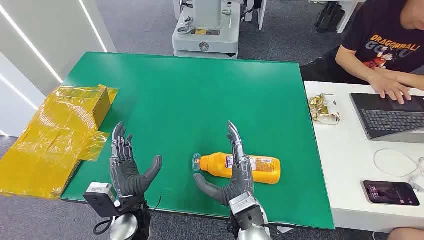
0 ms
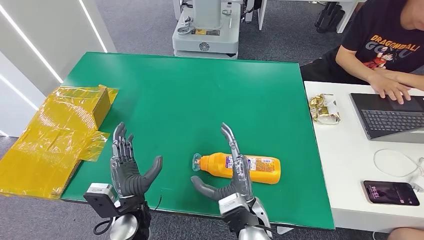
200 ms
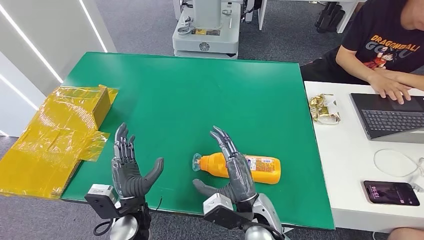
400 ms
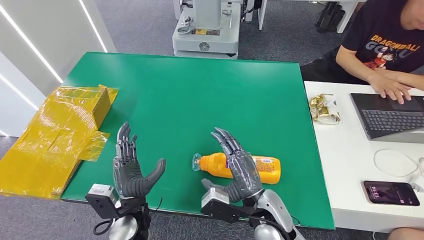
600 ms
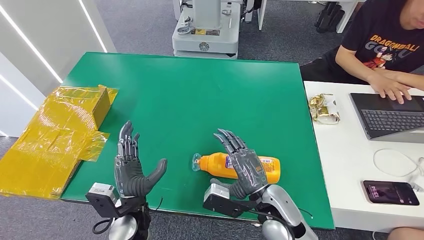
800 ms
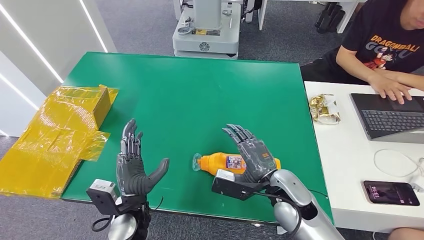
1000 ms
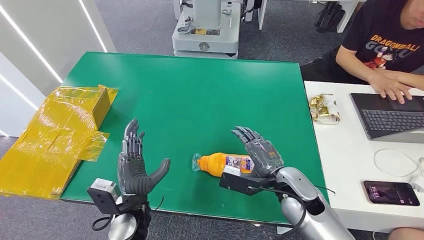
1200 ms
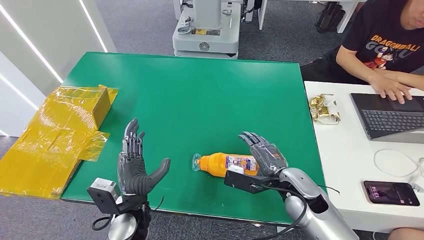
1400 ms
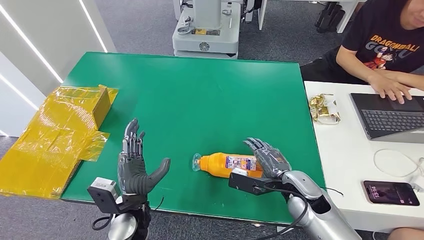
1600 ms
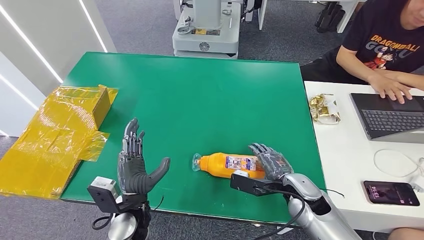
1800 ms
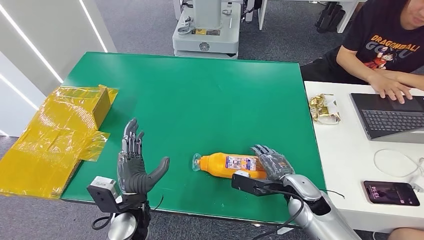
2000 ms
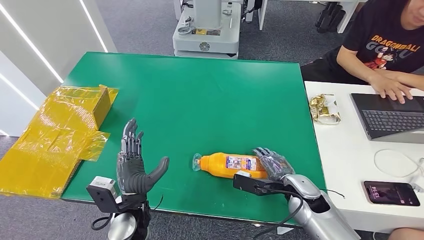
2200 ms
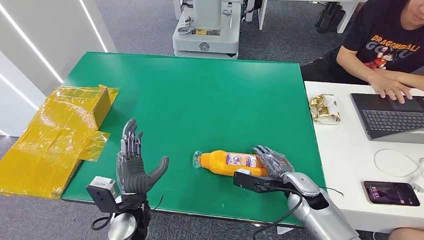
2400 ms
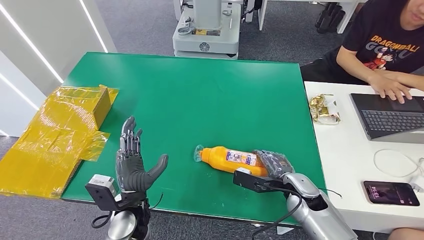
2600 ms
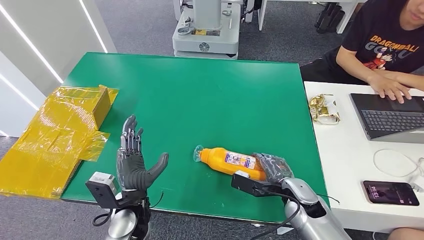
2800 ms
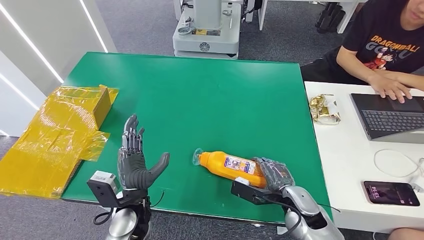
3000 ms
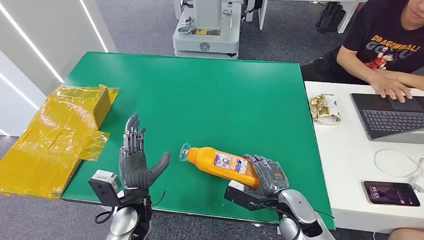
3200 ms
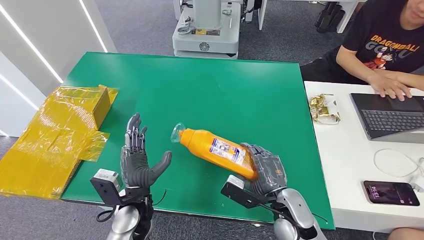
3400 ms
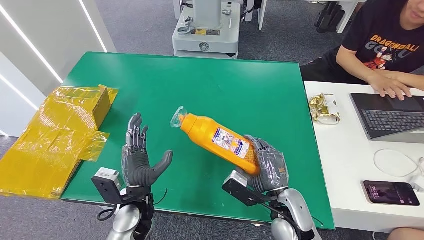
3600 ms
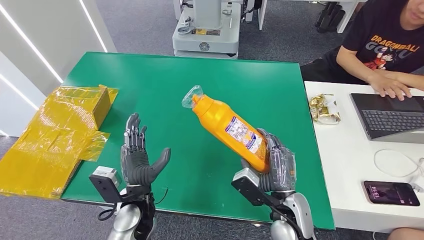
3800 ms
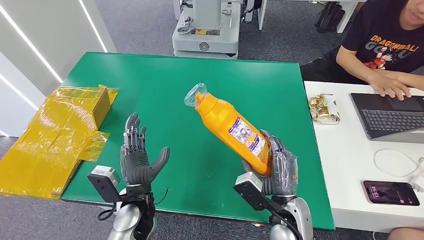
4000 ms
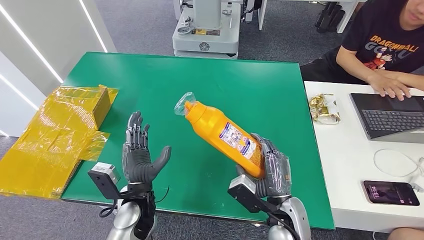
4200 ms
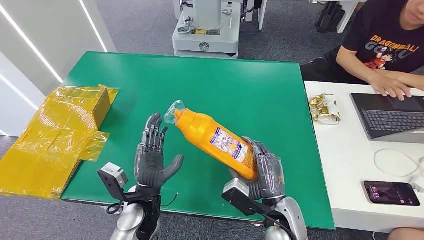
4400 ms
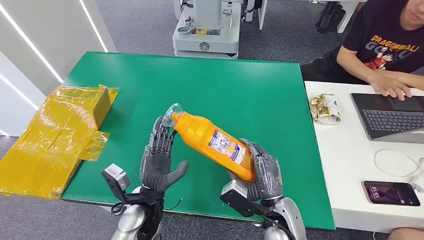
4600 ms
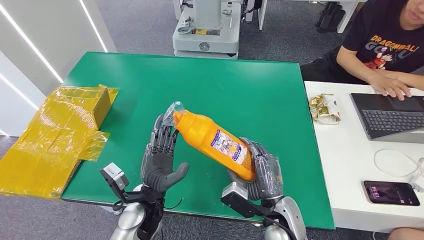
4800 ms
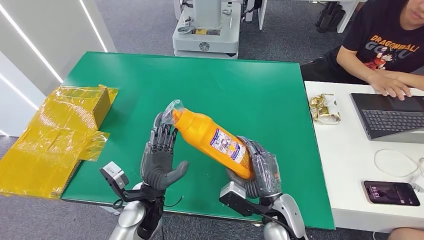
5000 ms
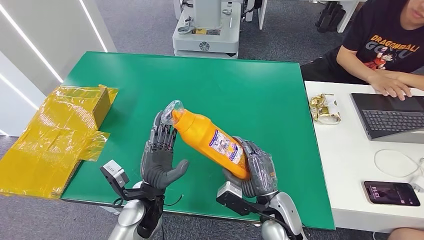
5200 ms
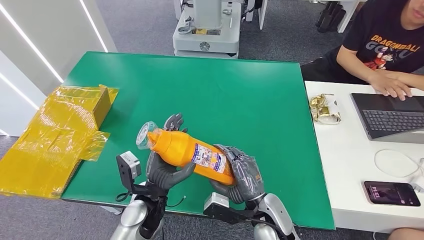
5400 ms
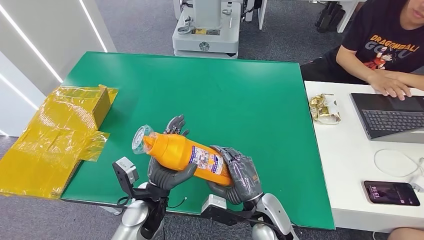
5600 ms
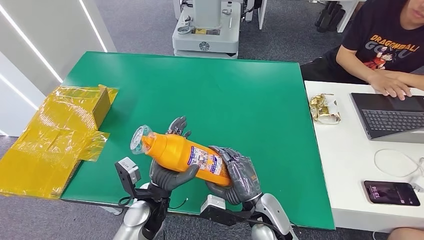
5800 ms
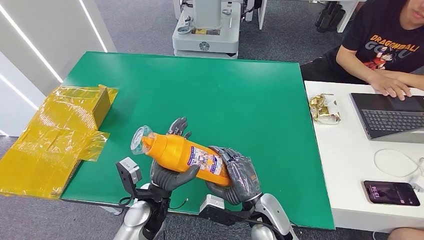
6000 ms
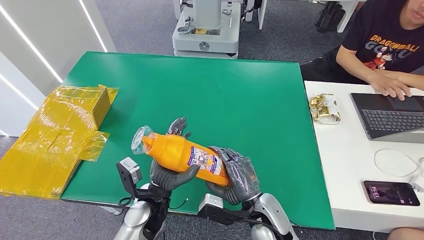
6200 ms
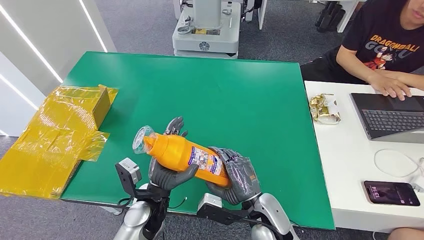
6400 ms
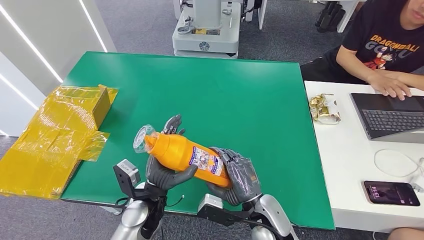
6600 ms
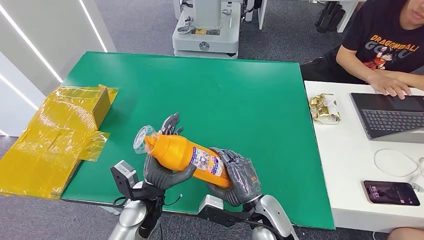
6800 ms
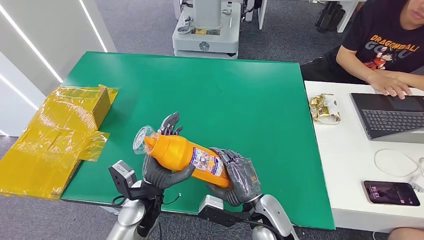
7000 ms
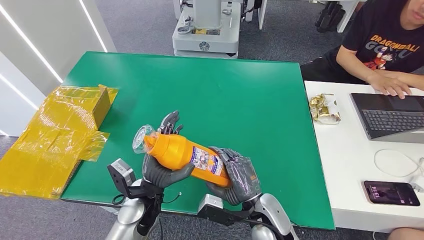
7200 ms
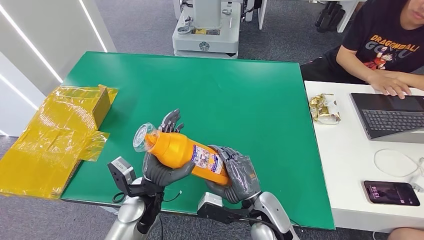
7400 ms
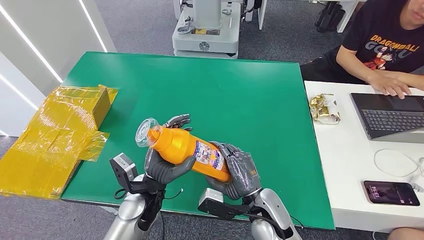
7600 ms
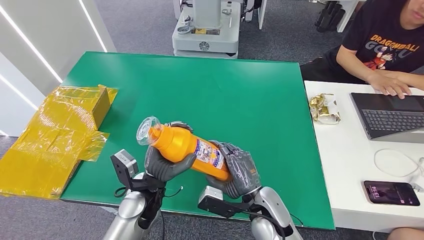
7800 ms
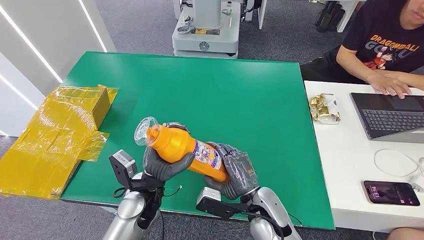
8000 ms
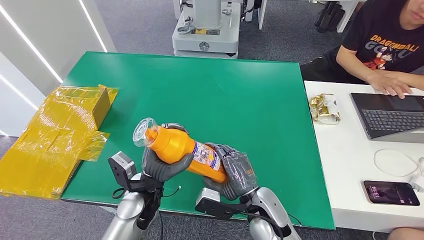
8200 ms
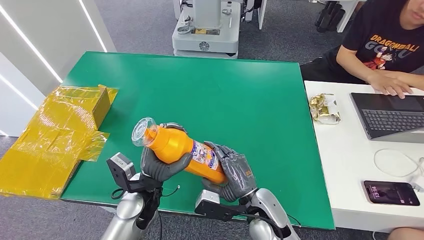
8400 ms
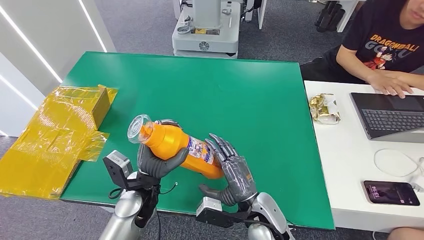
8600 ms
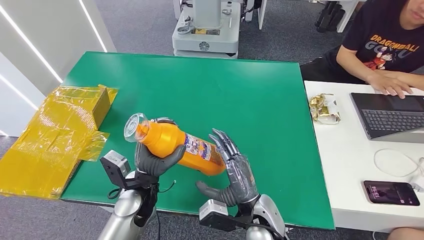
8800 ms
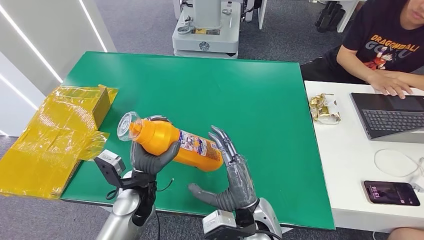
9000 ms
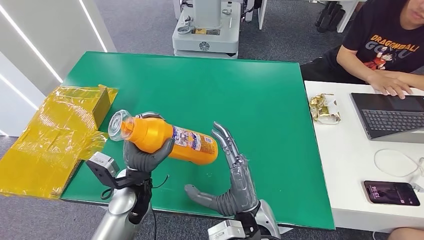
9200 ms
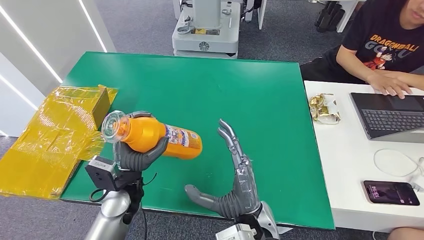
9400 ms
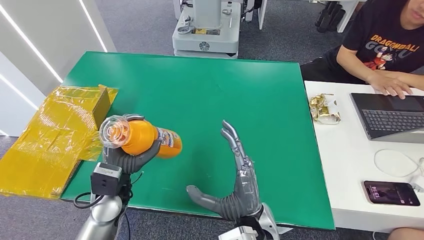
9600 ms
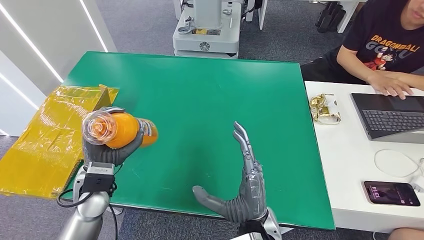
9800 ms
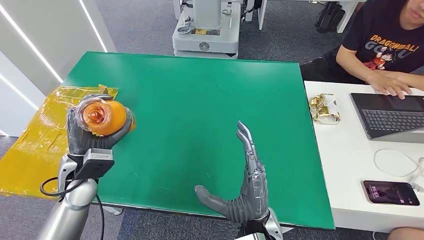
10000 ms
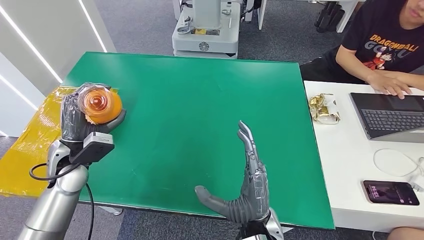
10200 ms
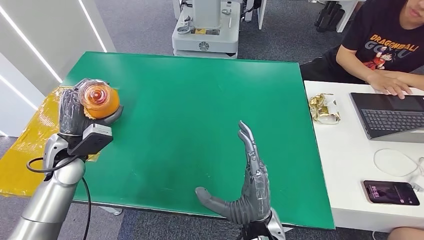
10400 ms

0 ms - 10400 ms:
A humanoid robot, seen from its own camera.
Step, 0 ms - 5200 ms: Pick up the bottle from the table.
Step, 5400 ms - 10400 ms: Turn the bottle to the front side.
1400 ms - 3000 ms: The right hand goes approximately 5 cm downward.
3000 ms - 4400 ms: The right hand heads to the left, covering roughly 5 cm.
4400 ms - 7400 ms: There are only small adjustments of the hands.
9000 ms - 10400 ms: The left hand goes approximately 20 cm to the left.

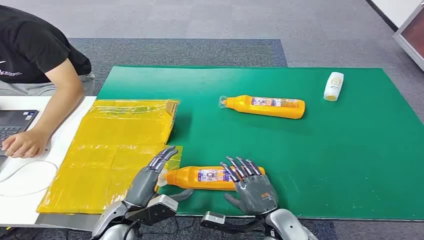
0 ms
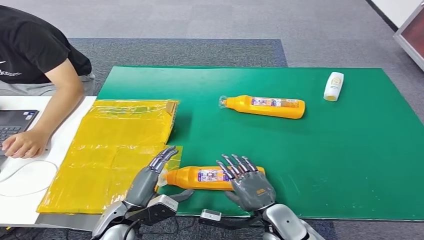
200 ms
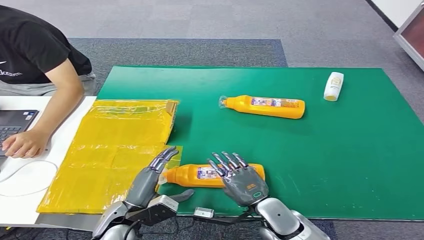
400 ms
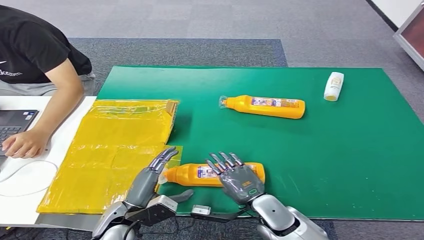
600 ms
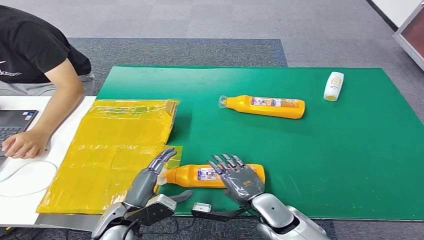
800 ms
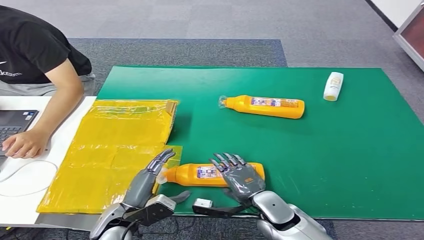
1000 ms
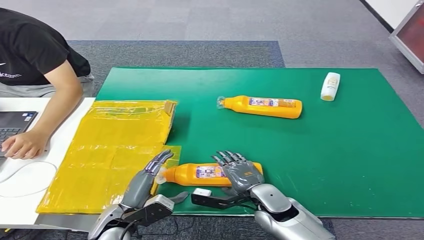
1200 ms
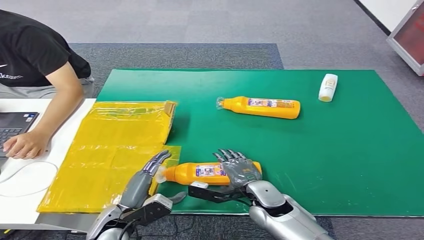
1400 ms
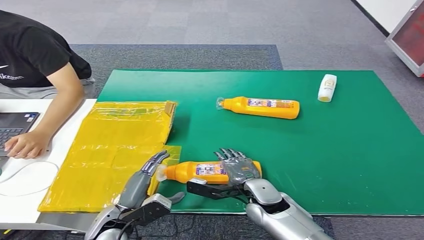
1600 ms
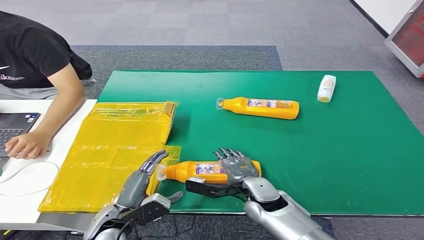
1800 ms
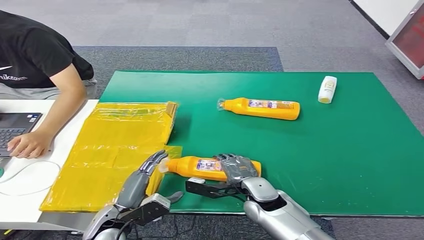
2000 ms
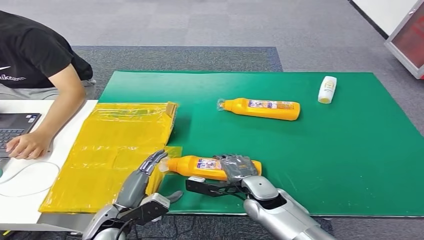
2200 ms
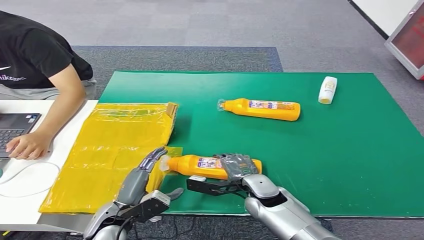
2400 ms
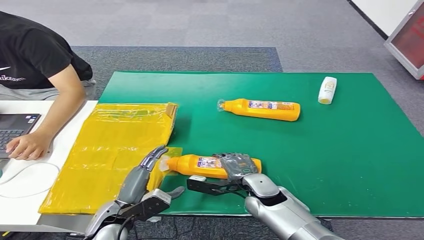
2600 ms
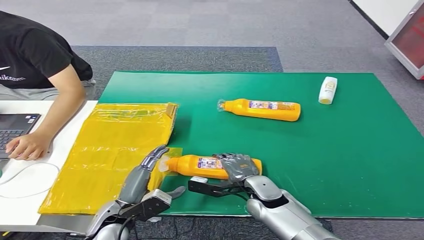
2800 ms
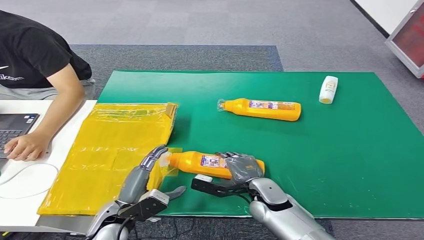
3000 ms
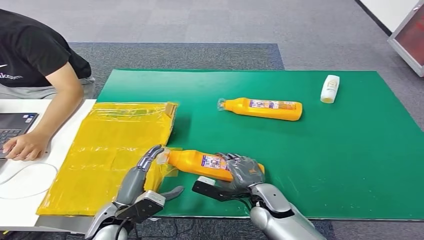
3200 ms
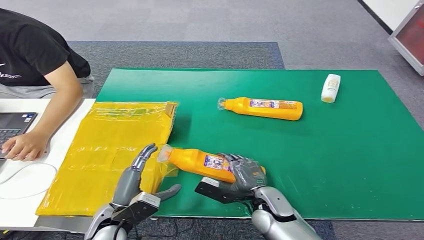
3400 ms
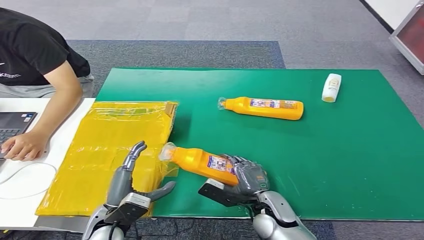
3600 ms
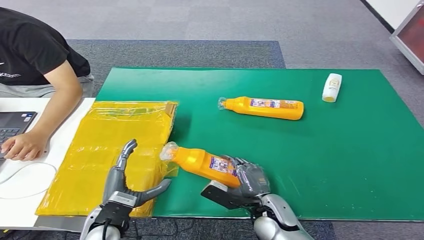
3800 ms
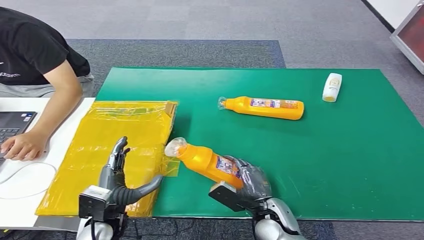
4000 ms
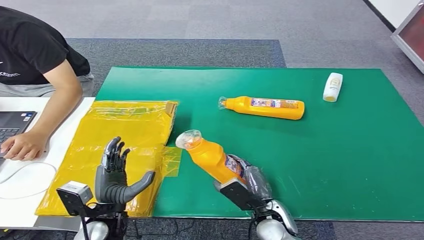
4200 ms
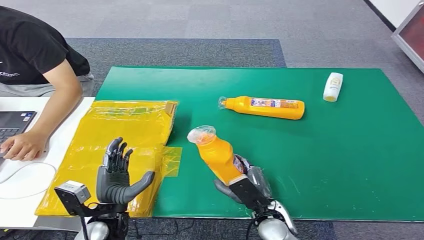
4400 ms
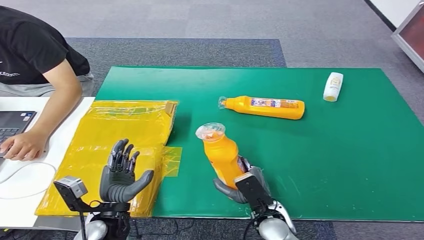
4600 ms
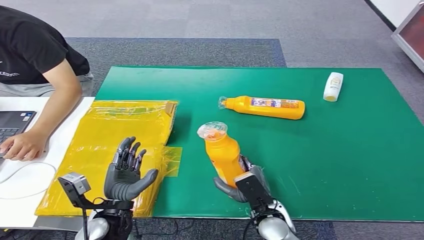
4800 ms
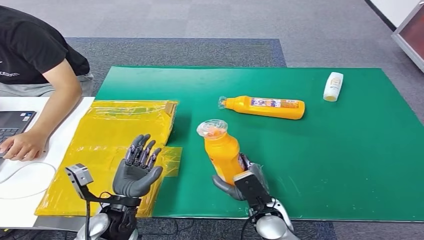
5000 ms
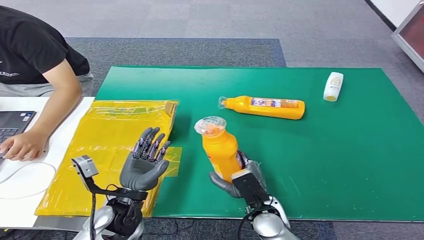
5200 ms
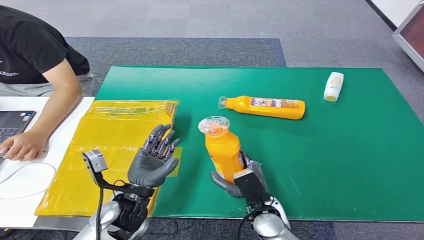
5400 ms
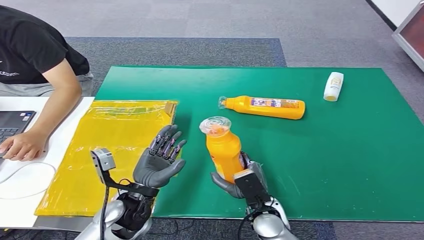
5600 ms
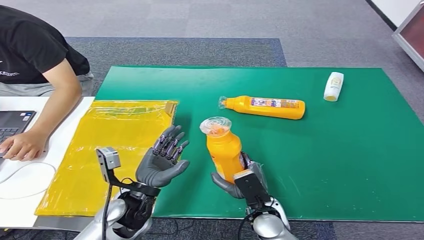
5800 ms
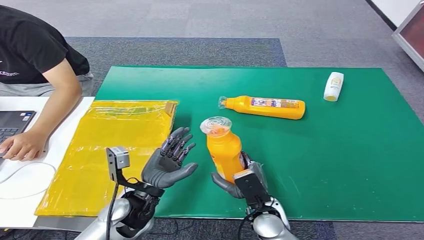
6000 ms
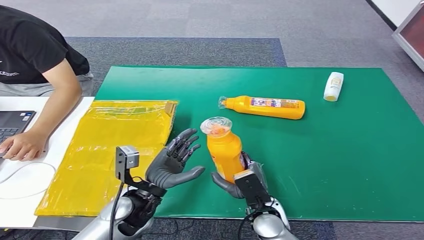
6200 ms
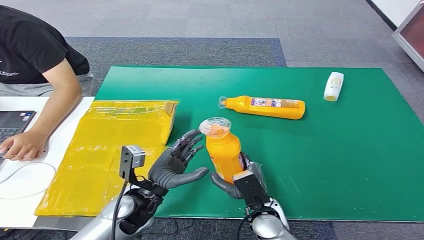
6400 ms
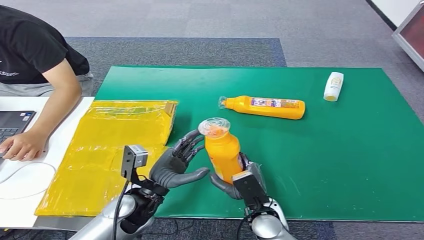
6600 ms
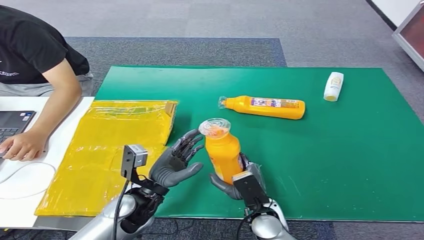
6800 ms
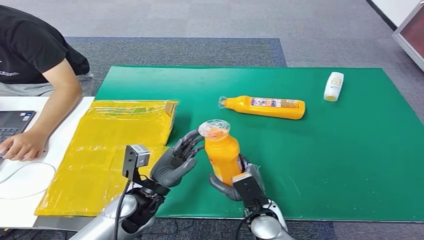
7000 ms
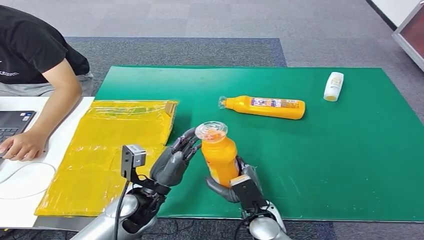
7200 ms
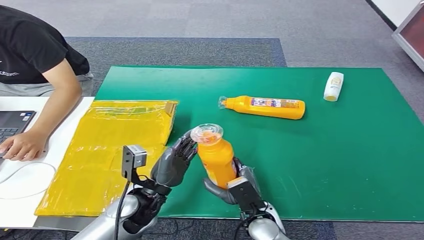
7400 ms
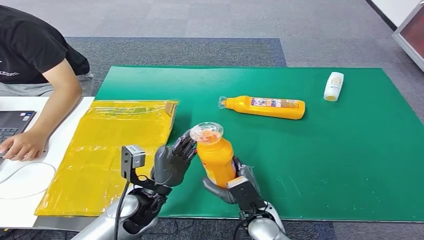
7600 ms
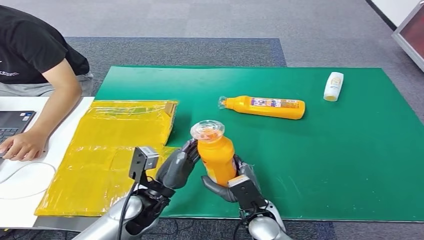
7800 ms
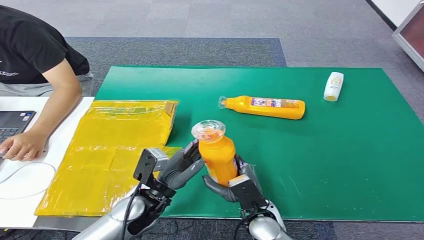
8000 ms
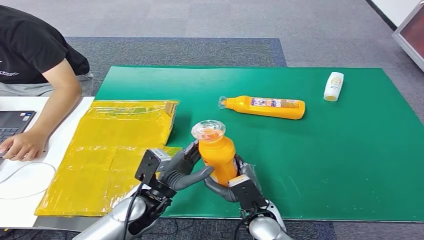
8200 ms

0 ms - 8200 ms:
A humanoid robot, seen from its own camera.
Step, 0 ms - 4000 ms: Pick up the bottle from the table.
5000 ms - 6600 ms: The left hand changes place by approximately 5 cm.
6600 ms - 8200 ms: The hands move only a little.
